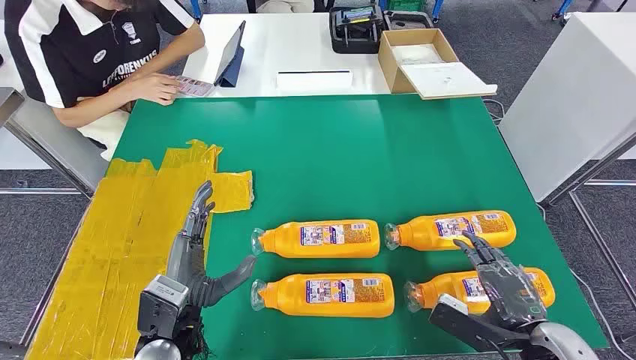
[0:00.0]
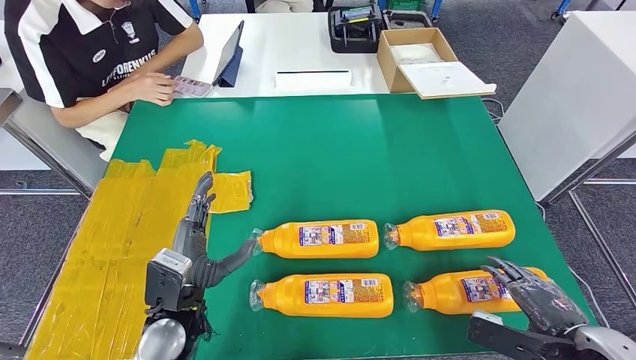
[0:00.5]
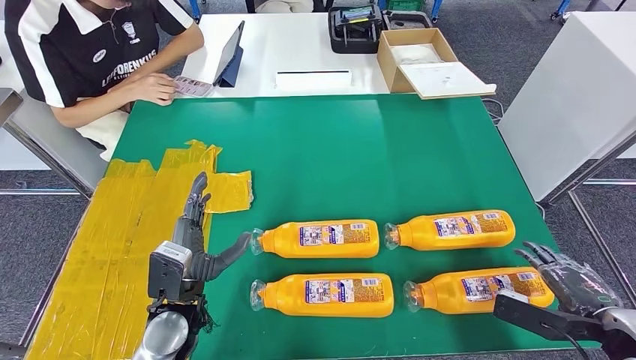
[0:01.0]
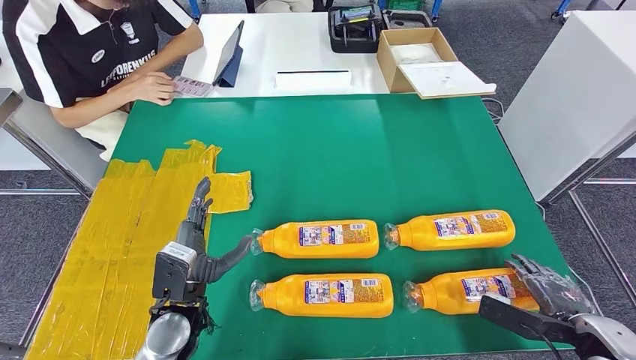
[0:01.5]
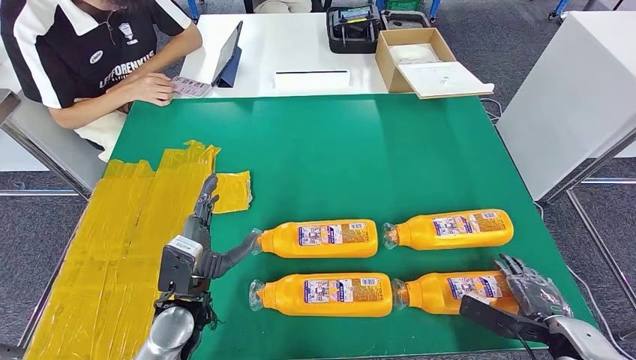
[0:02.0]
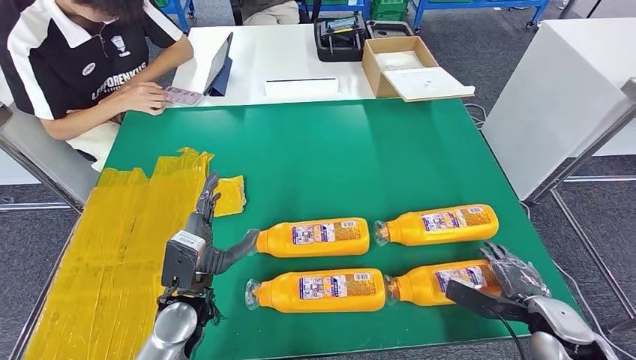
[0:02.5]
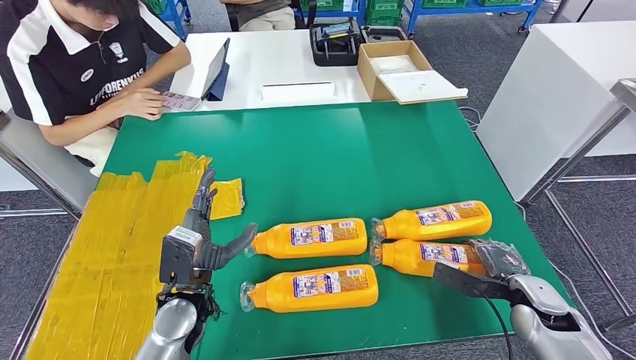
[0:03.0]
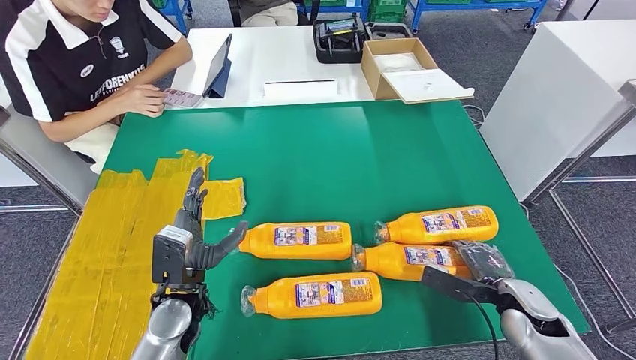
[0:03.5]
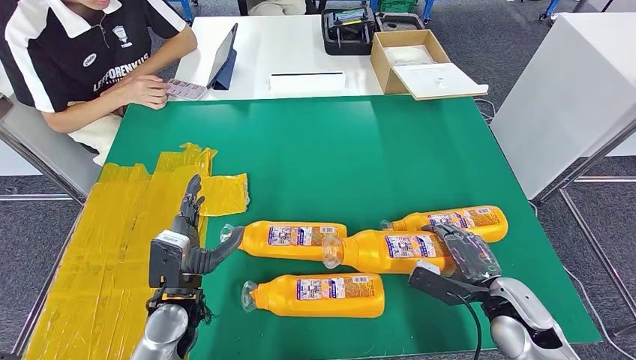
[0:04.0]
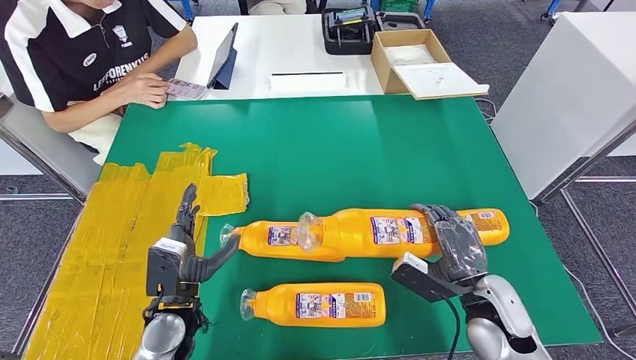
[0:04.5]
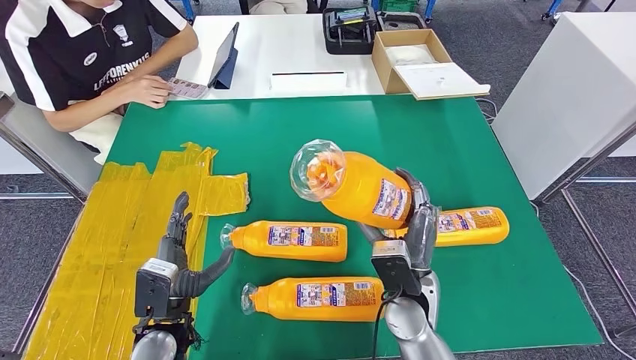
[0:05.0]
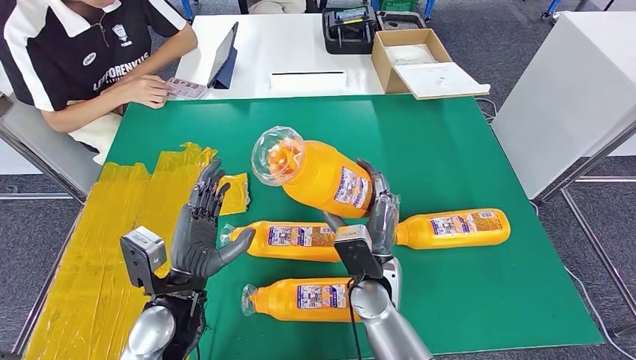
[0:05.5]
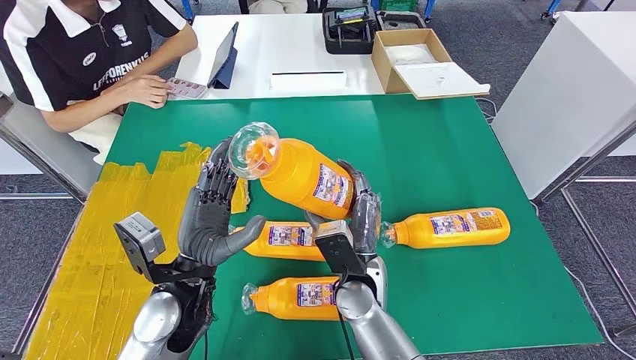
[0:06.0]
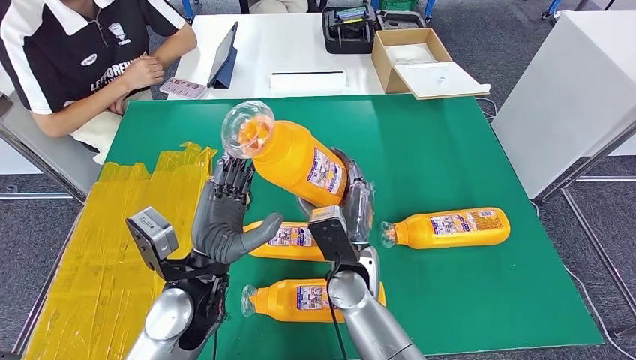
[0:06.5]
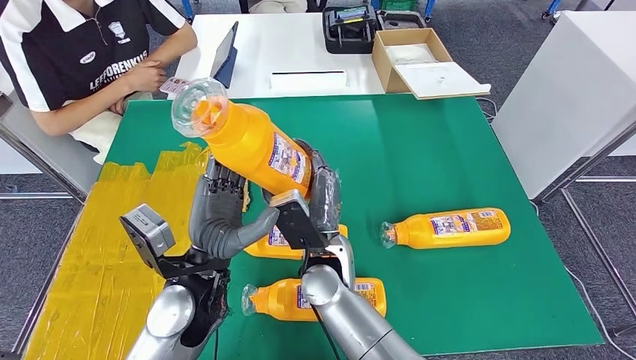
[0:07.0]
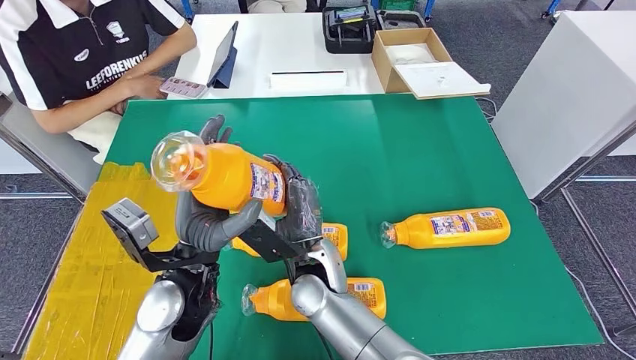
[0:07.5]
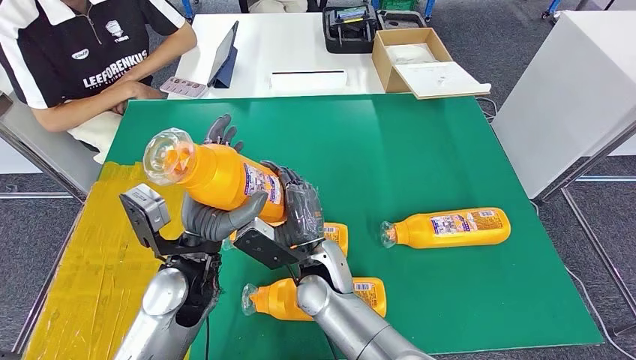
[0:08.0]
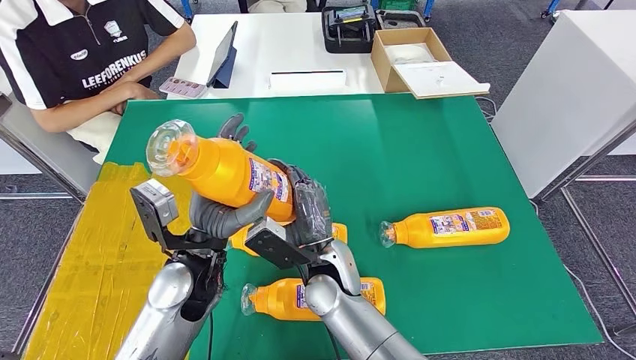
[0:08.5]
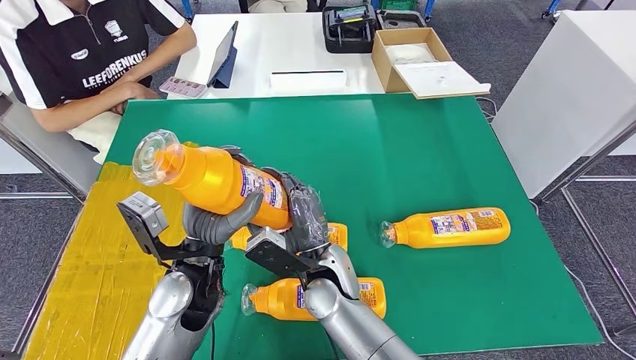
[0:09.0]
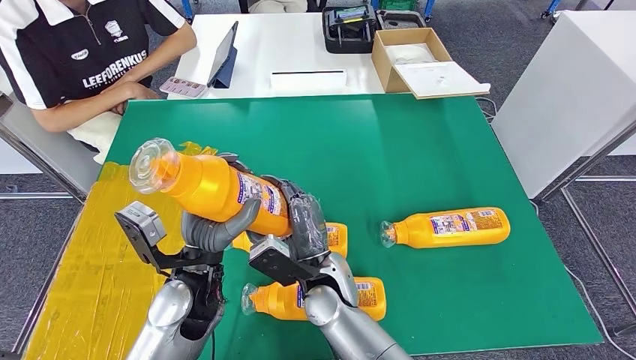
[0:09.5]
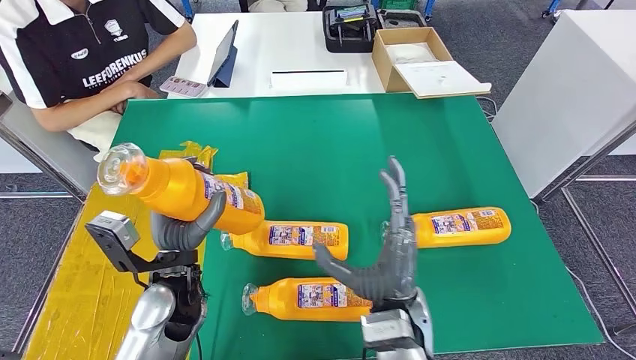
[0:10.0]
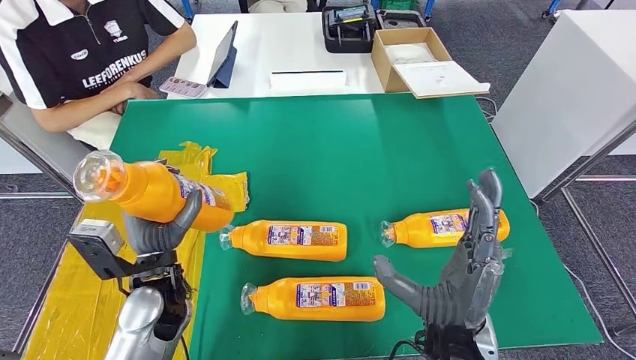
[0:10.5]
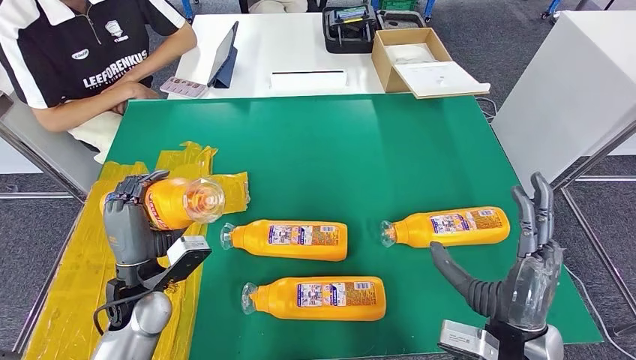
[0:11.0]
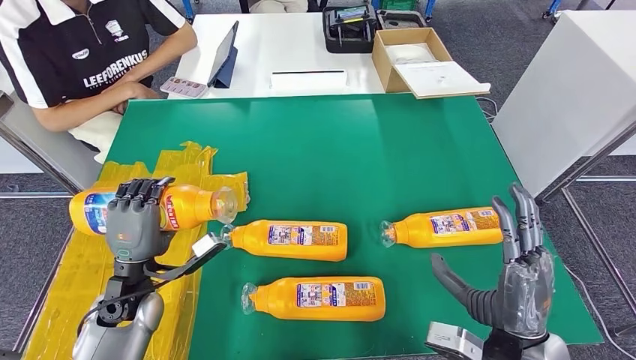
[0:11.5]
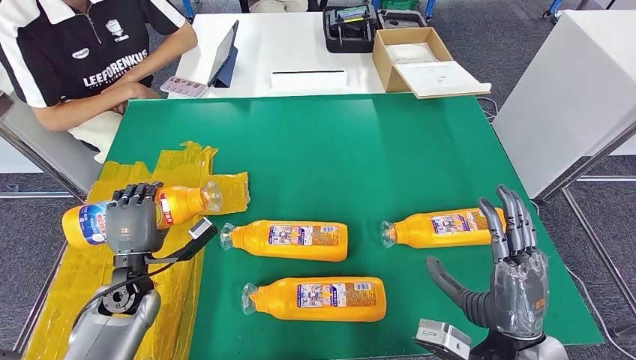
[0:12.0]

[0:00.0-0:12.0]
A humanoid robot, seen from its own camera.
Step, 0:00.0 to 0:05.0: Take the fast-moving consumer goods bottle from the table.
0:06.0 to 0:08.0: The right hand goes about 5 cm to the left.
0:08.0 to 0:10.0: The left hand moves some 5 cm. Meanwhile the right hand moves to the right and backward, roughly 10 cm.
0:10.0 to 0:12.0: The left hand moves to the left and downward, roughly 15 cm; the right hand heads to the right, covering some 15 cm.

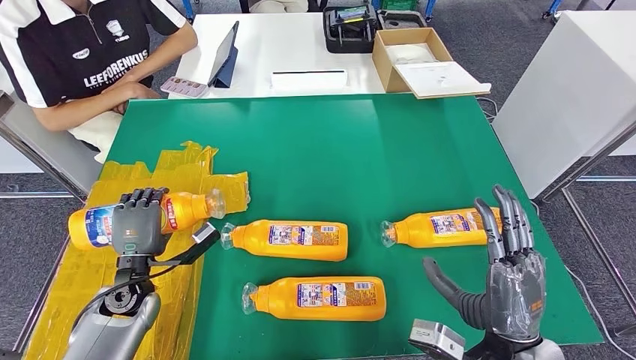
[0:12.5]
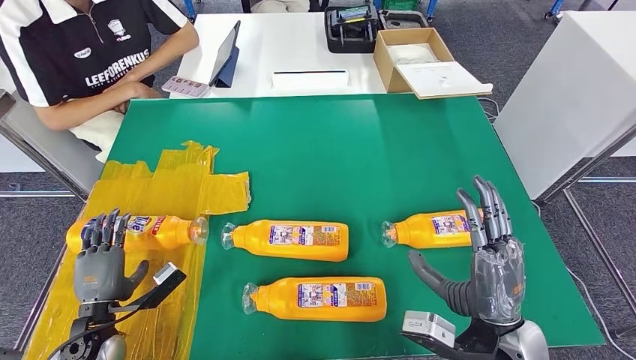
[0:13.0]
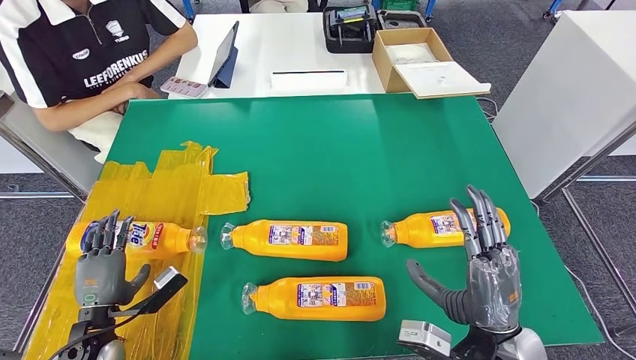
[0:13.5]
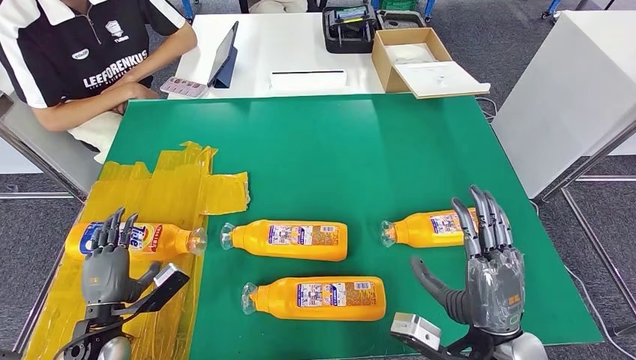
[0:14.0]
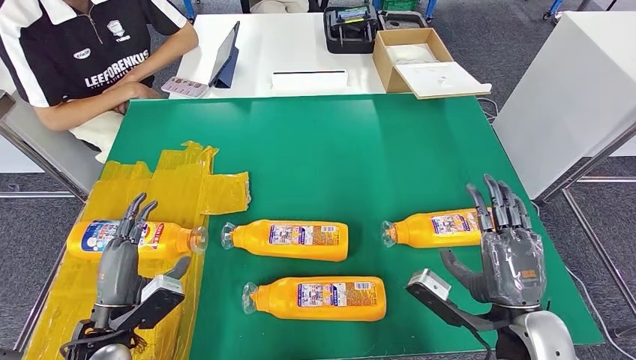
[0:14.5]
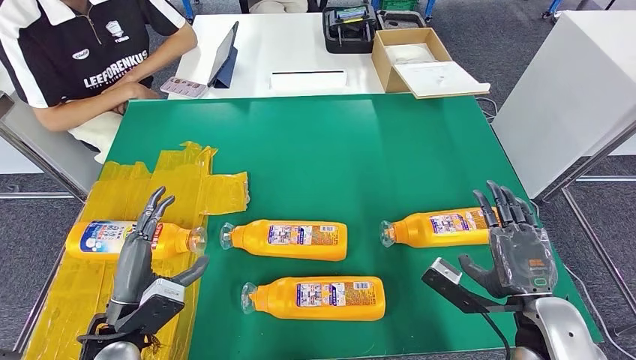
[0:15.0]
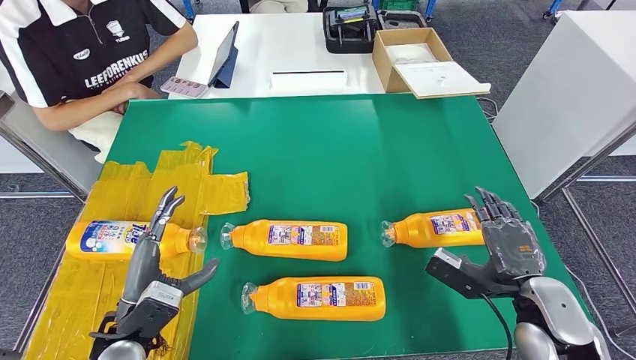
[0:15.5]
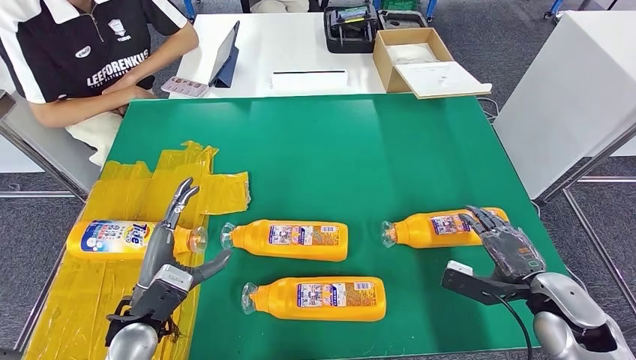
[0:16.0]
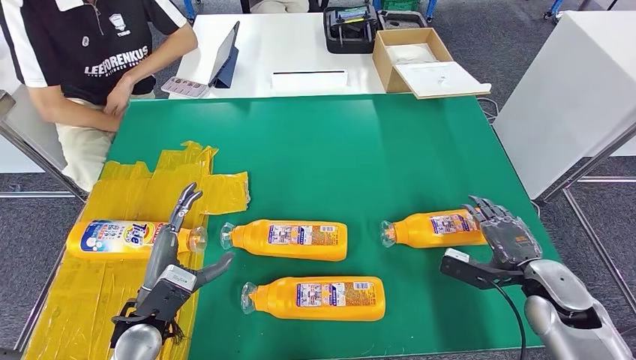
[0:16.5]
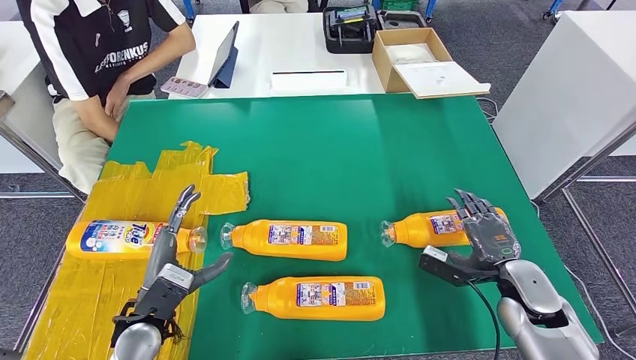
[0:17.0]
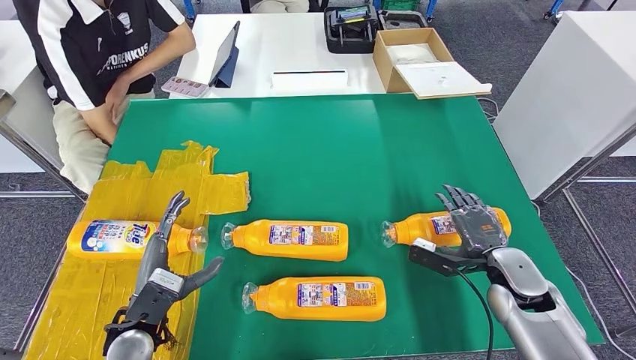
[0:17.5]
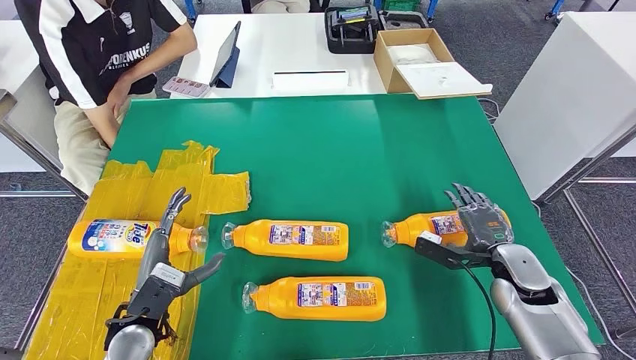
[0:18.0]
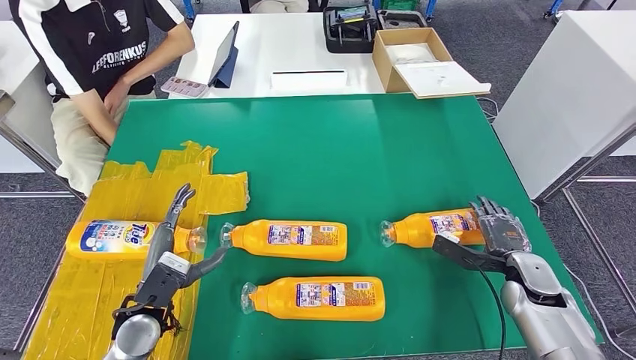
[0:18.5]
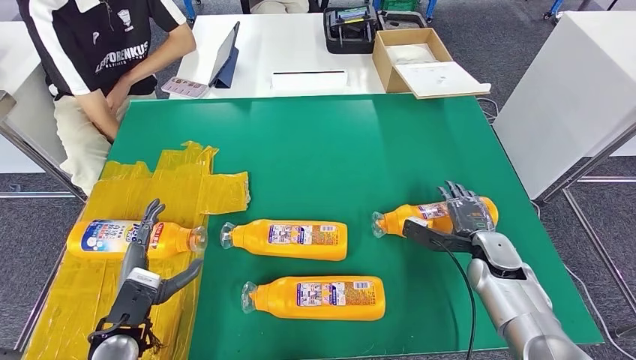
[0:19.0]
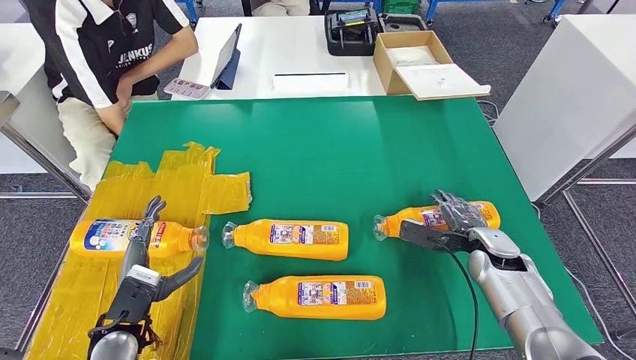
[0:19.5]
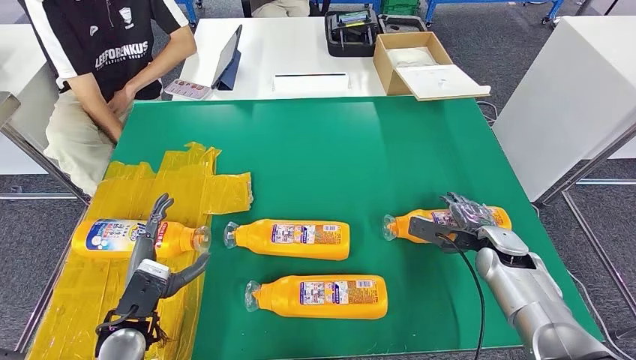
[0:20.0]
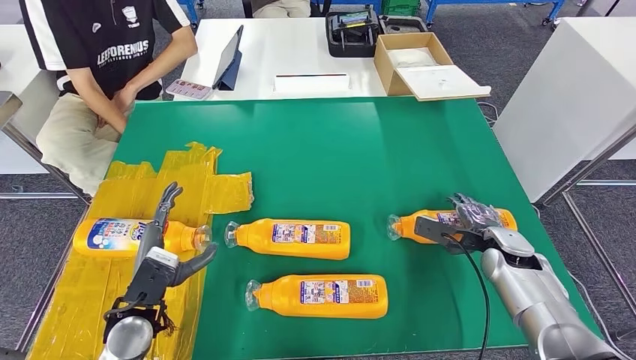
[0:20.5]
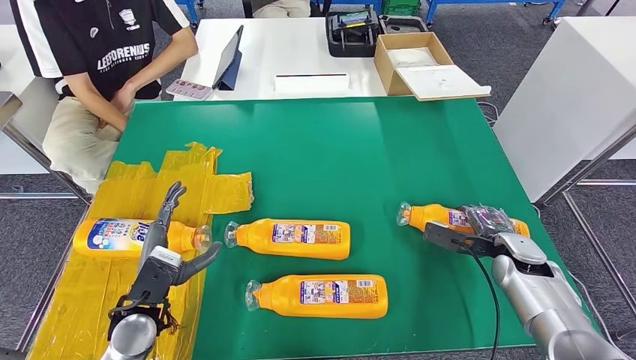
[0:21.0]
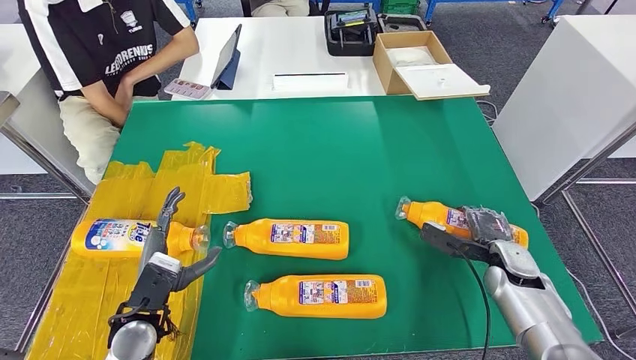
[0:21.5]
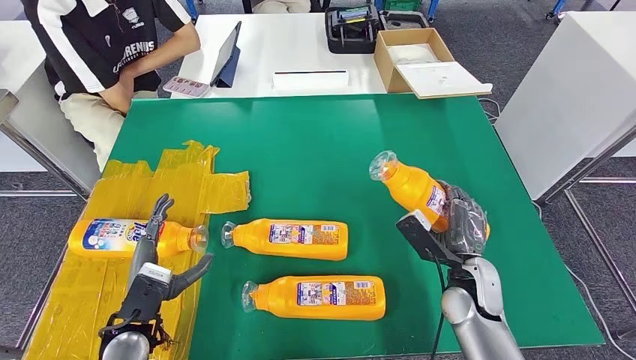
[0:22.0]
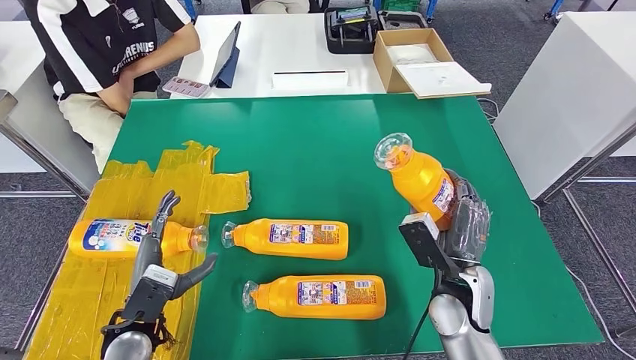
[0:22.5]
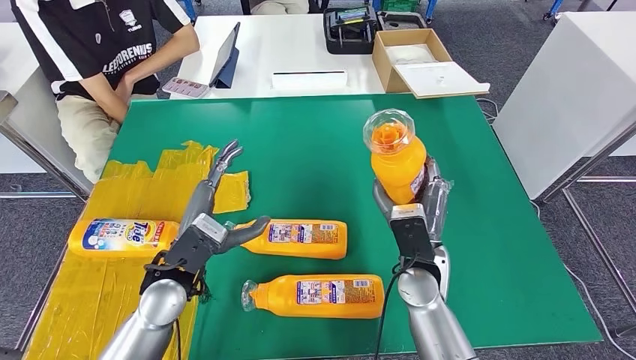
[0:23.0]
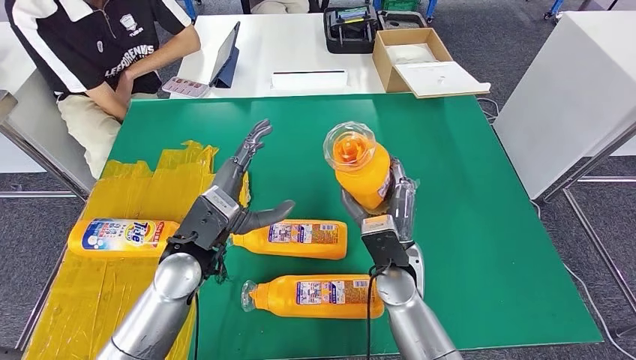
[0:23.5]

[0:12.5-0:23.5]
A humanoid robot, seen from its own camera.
Step, 0:12.5 to 0:14.5: Flip the fast-moving consumer goods bottle to the front side.
Step, 0:15.0 to 0:23.5: Pick up the fast-moving consumer goods bottle from the table.
0:12.5 to 0:14.5: The left hand moves backward, roughly 10 cm.
0:14.5 to 0:16.0: The right hand heads to the right, forward and downward, covering roughly 15 cm; the left hand travels to the right by about 5 cm.
0:16.0 to 0:18.0: The right hand moves forward, about 5 cm.
0:20.0 to 0:21.5: There are only small adjustments of the hands.
